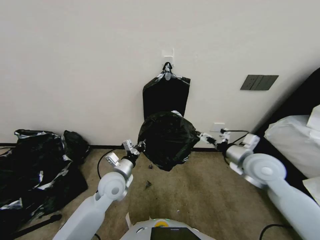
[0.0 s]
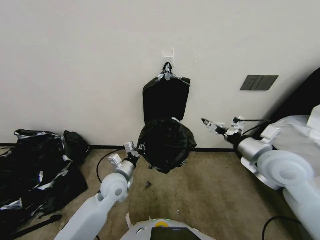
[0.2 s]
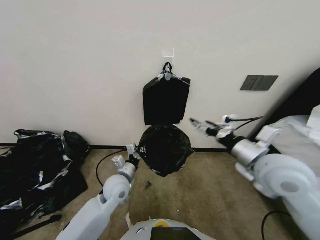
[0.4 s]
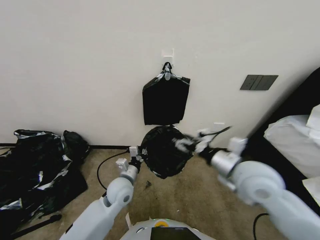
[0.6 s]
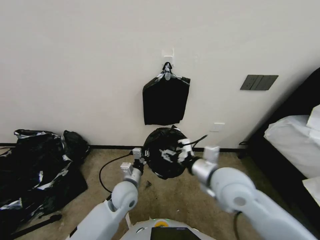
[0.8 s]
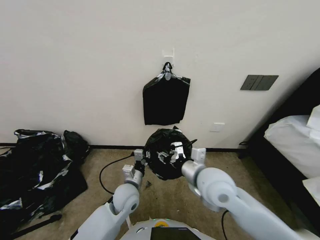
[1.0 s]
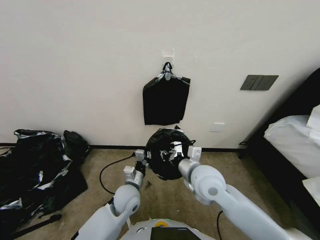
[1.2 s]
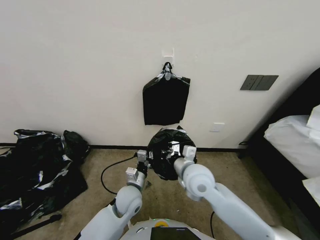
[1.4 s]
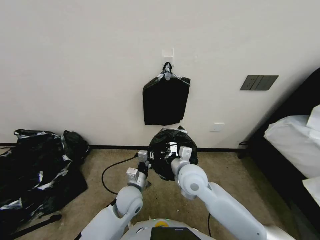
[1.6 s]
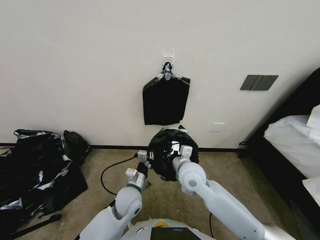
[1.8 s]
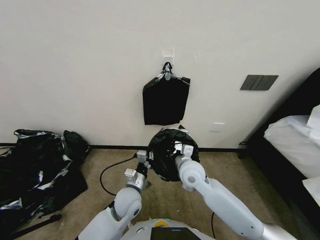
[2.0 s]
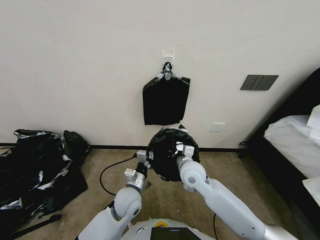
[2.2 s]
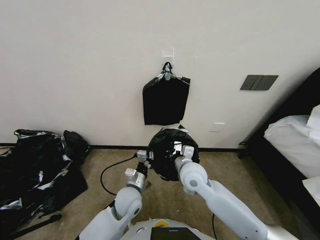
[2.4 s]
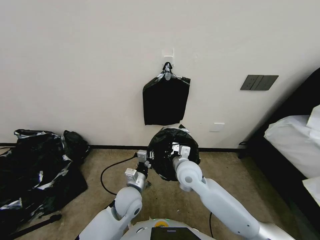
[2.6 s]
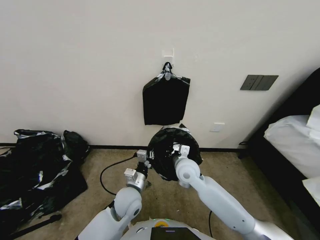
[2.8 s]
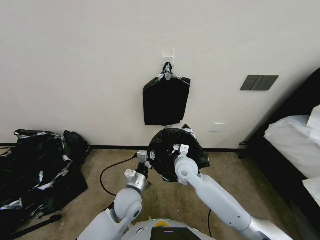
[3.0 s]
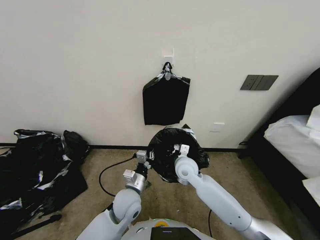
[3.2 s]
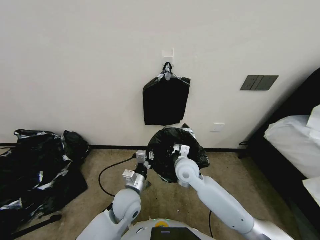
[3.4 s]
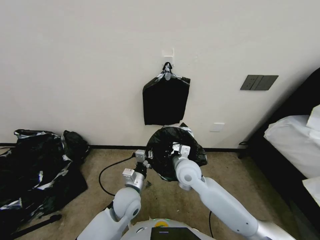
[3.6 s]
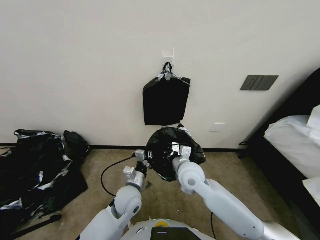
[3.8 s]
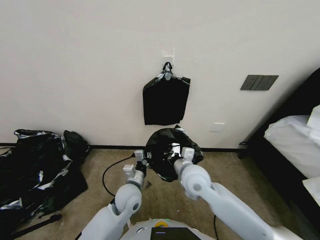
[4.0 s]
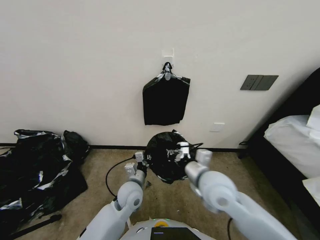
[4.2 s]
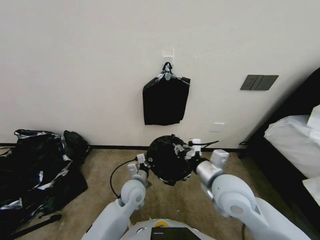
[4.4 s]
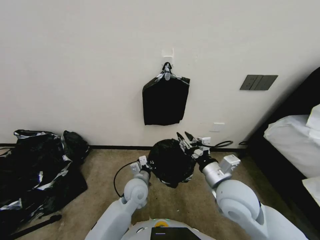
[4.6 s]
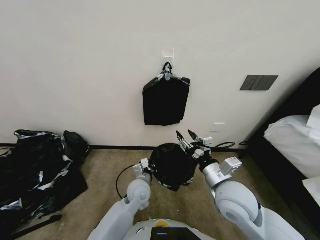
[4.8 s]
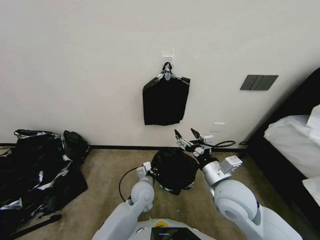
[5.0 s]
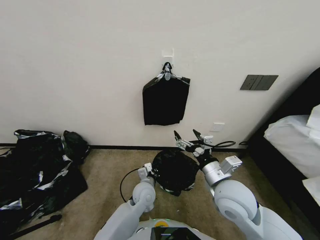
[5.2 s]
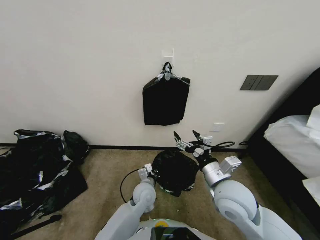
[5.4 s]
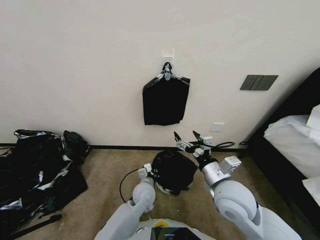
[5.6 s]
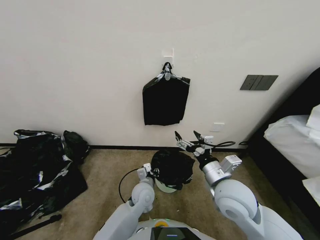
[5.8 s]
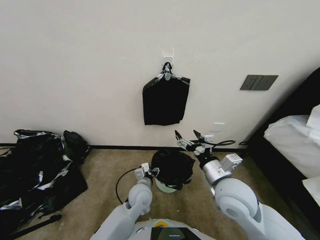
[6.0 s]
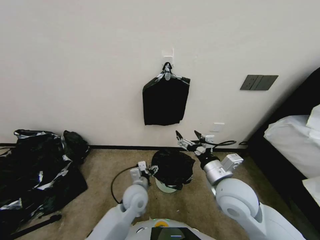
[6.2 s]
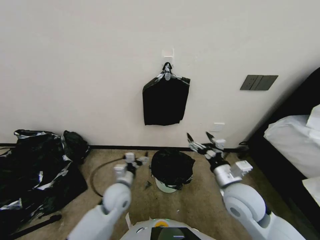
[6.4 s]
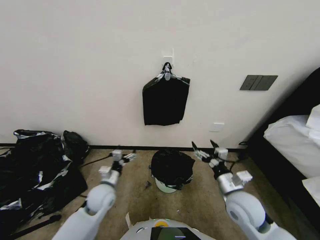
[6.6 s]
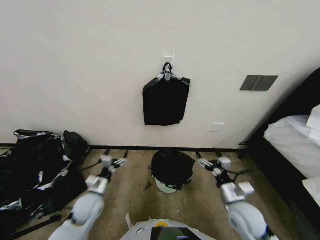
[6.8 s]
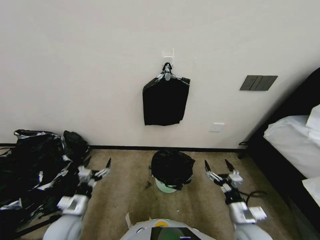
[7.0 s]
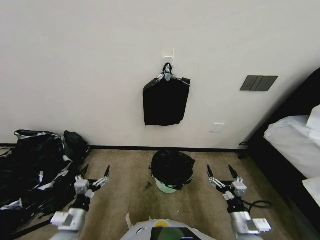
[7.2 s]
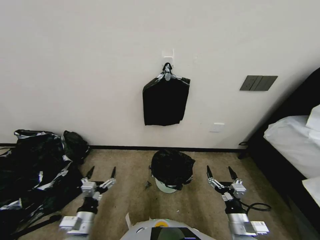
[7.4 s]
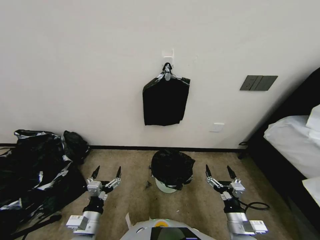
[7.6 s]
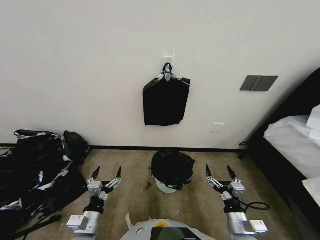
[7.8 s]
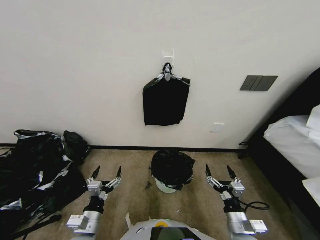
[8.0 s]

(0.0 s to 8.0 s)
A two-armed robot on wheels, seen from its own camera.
Task of the whole recording: Place a trash bag onto the trash bin.
0.0 s - 1.6 s: The left gripper is displaced to the right and downward by approximately 10 cm; the right gripper moves to the left, approximately 20 cm, and closes up.
1.6 s - 3.2 s: The right gripper is displaced forward and downward by about 10 cm.
3.2 s - 4.8 s: The left gripper changes place by roughly 5 cm, while the right gripper is displaced backward, to the right and upward by roughly 20 cm, and opens up.
4.8 s - 6.4 s: The right gripper opens up. Meanwhile the left gripper opens its fingers.
6.4 s - 8.0 s: The right gripper heads downward, backward and to the right, covering roughly 20 cm; the left gripper is displaced backward and to the left by approximately 20 cm.

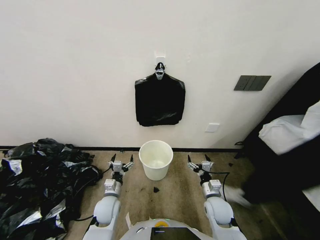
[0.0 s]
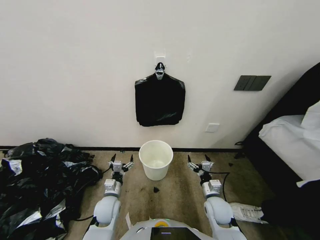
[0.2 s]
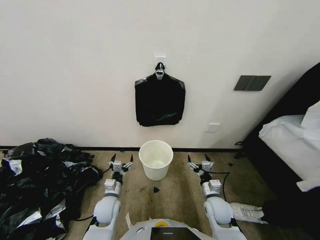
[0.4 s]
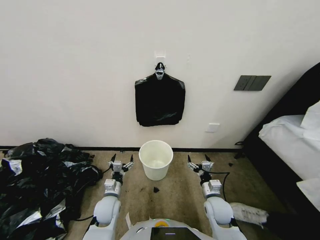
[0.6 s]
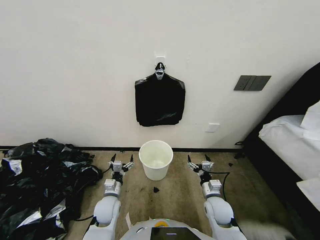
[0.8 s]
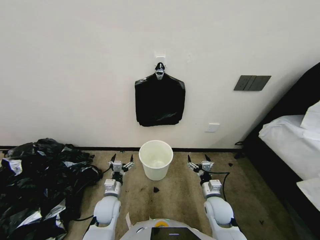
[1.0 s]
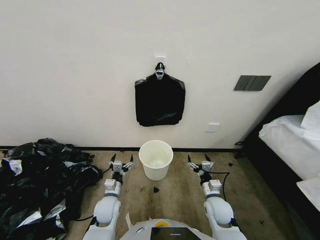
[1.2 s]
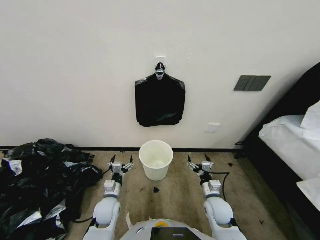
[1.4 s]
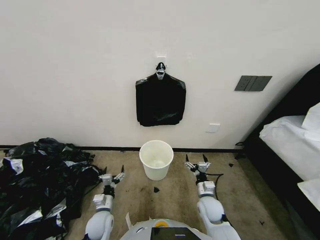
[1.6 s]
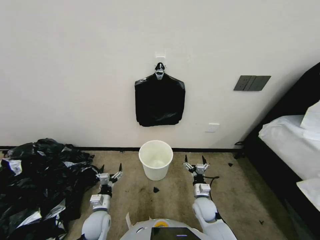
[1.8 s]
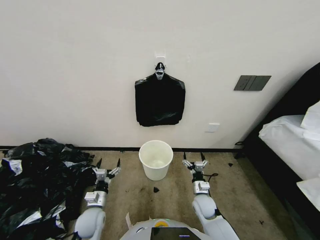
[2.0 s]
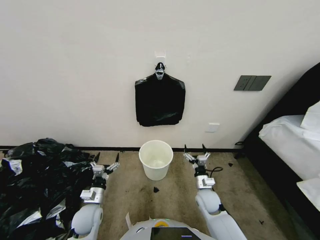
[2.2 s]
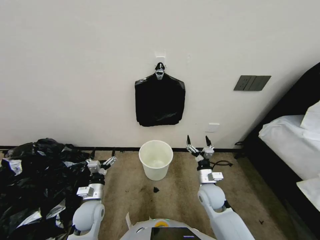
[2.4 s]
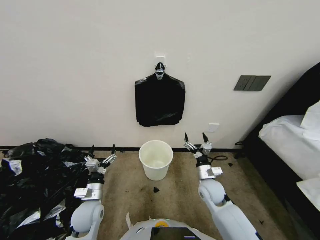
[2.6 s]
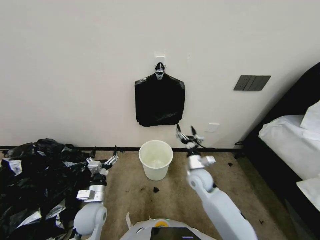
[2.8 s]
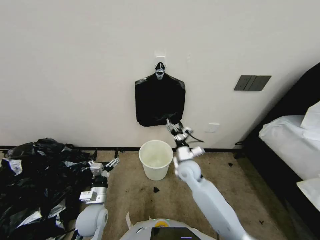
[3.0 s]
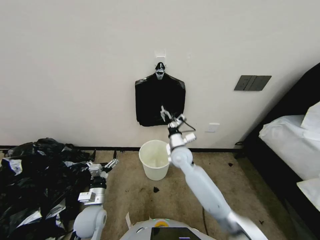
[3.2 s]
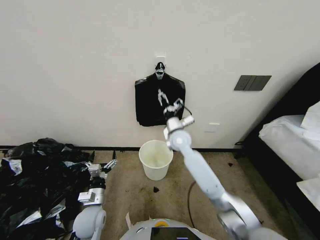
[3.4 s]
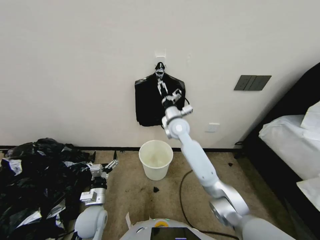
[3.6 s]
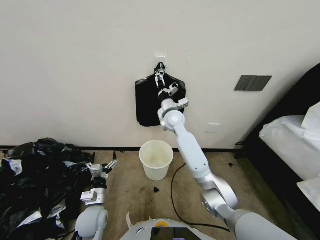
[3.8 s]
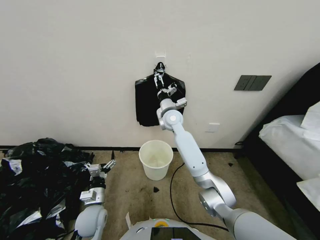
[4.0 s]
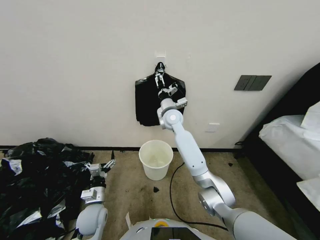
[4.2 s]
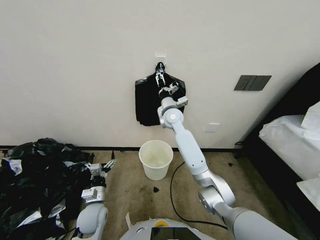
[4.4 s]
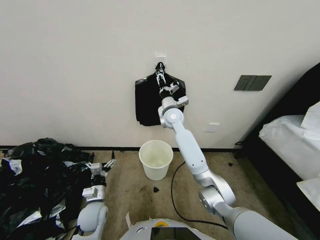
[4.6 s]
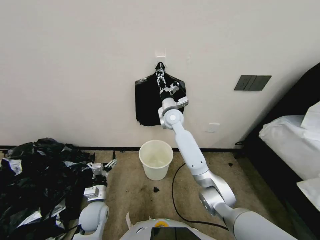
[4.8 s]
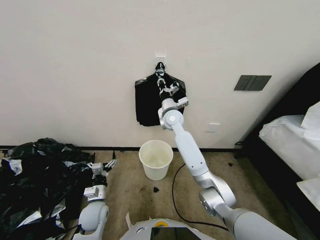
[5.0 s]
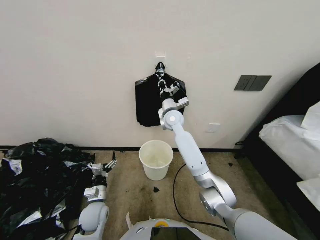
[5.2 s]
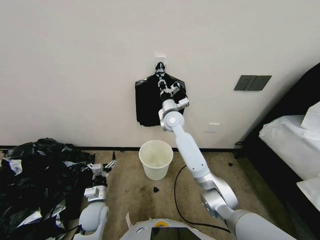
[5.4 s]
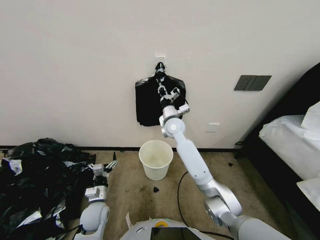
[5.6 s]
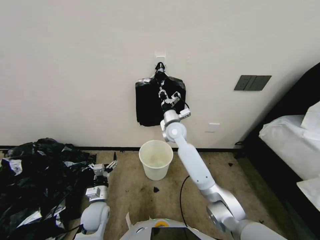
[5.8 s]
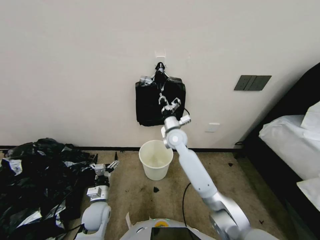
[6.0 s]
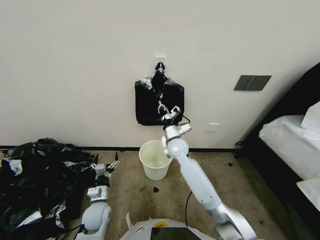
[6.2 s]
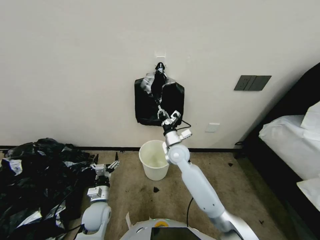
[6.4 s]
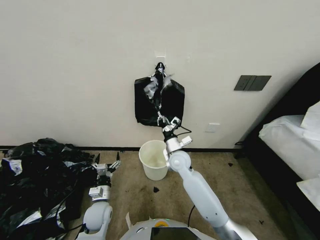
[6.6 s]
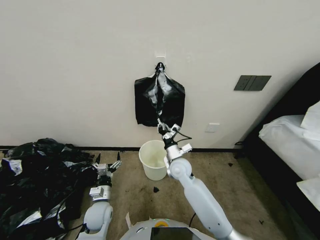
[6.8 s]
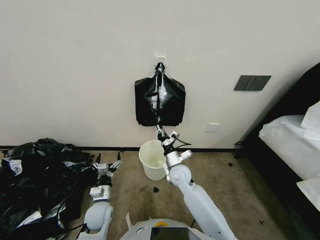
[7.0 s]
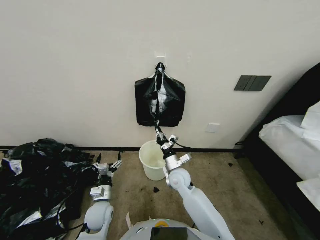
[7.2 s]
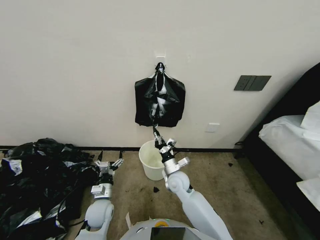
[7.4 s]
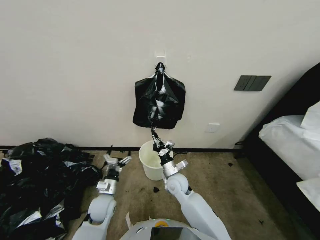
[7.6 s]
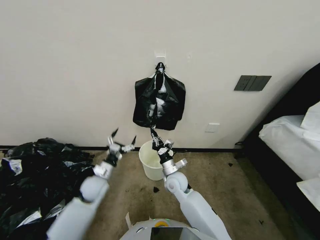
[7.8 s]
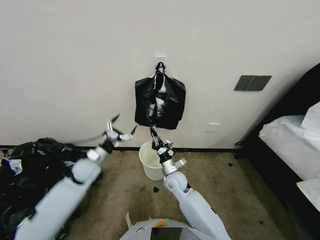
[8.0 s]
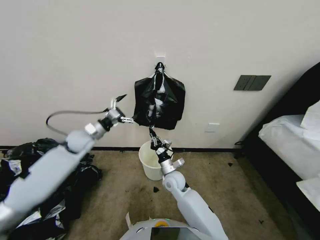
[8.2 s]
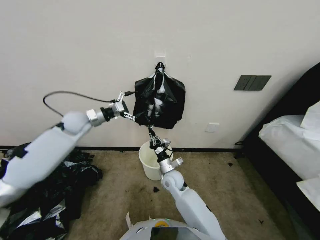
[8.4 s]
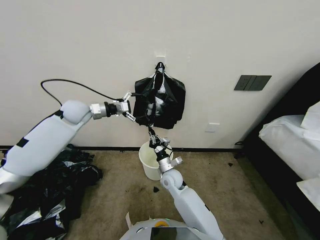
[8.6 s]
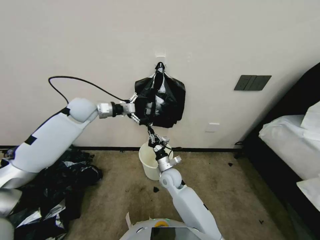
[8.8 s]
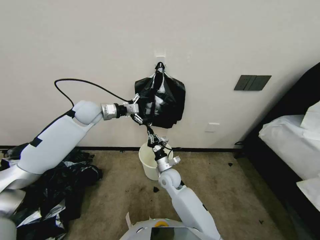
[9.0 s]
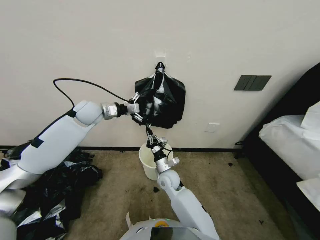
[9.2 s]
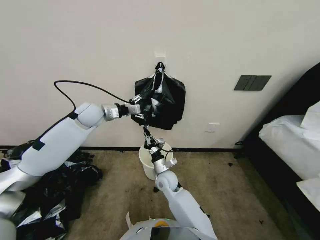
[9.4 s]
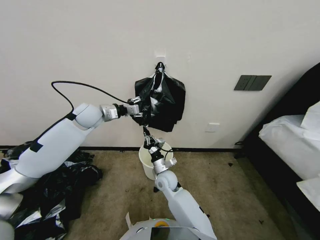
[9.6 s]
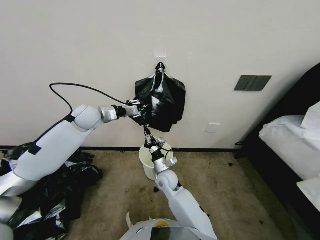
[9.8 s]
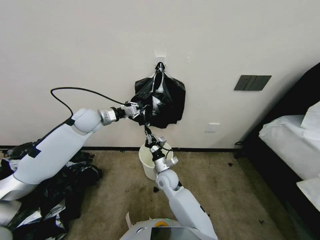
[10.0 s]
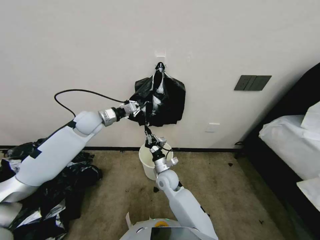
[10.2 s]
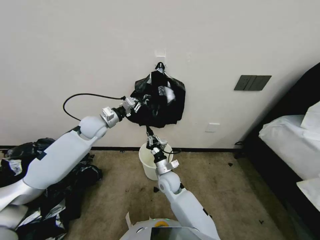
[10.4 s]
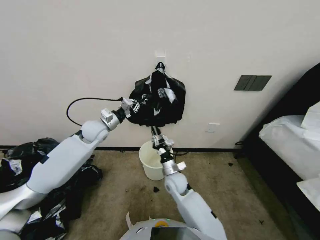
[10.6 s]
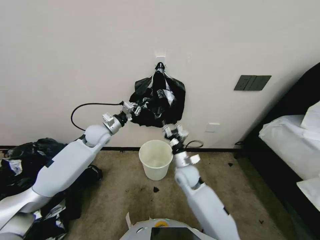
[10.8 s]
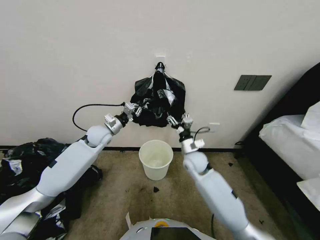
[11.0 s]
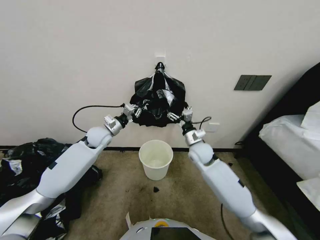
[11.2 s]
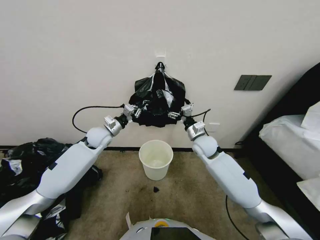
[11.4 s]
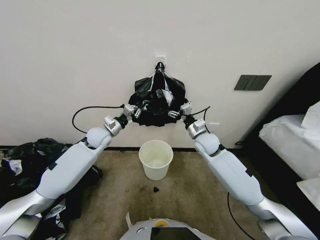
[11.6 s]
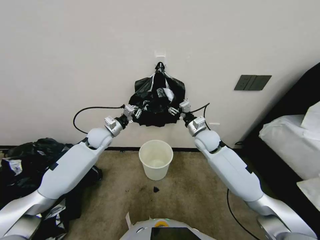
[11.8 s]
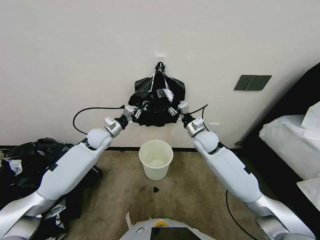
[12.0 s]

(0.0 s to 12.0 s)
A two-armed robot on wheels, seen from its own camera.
Task of the whole recording: Place a trash bag onto the trash bin.
1.6 s - 3.0 s: The right gripper goes approximately 15 cm forward, upward and to the left. Meanwhile the left gripper is displaced upward by approximately 5 cm.
3.0 s - 4.4 s: The right gripper goes approximately 25 cm upward, forward and to the left.
4.4 s - 6.0 s: The right gripper heads downward, covering about 5 cm, and closes its fingers.
6.0 s - 7.6 s: The right gripper is displaced downward and backward by some 20 cm.
7.6 s - 9.0 s: The left gripper heads upward and forward, covering roughly 40 cm.
9.0 s - 10.4 s: The left gripper changes place by roughly 5 cm, and closes its fingers.
10.4 s - 12.0 s: The left gripper is displaced downward by roughly 5 cm; the right gripper goes about 25 cm to the right, upward and forward, and opens its fingers.

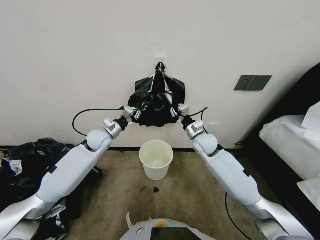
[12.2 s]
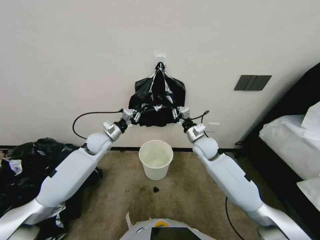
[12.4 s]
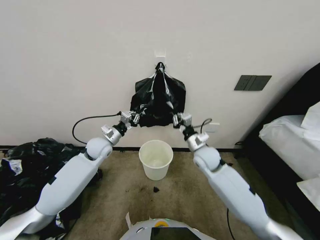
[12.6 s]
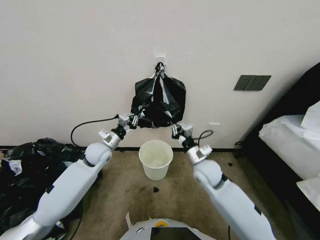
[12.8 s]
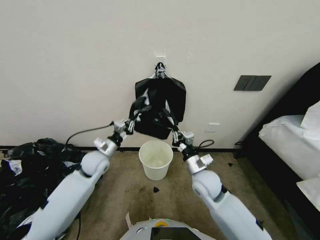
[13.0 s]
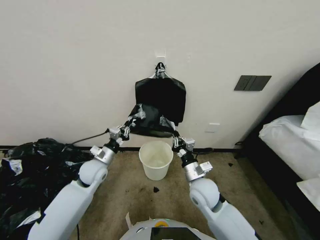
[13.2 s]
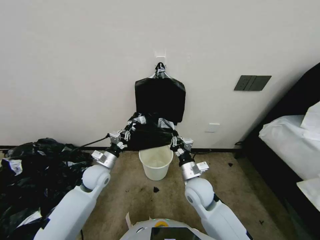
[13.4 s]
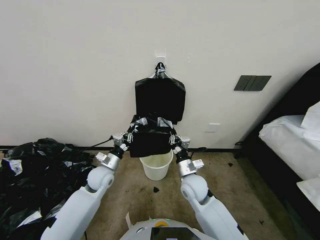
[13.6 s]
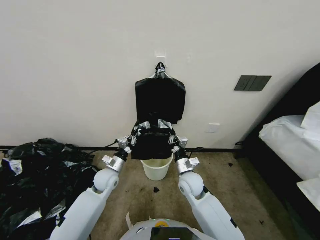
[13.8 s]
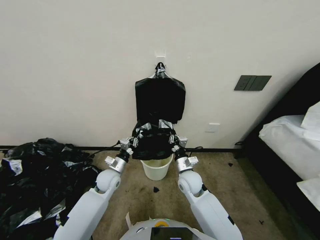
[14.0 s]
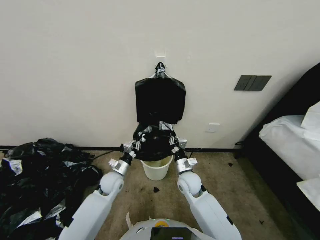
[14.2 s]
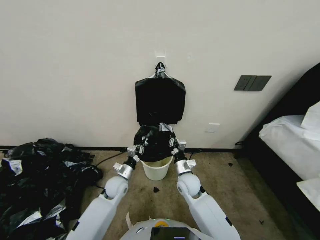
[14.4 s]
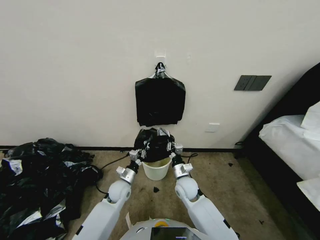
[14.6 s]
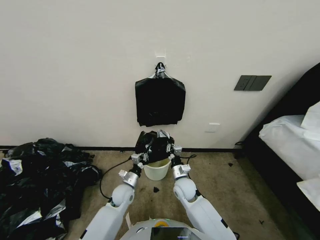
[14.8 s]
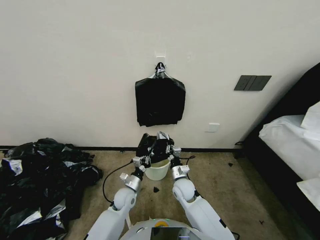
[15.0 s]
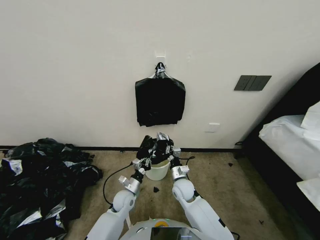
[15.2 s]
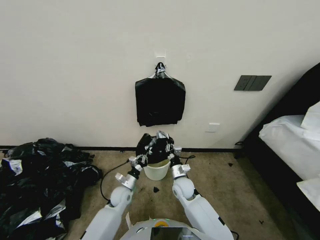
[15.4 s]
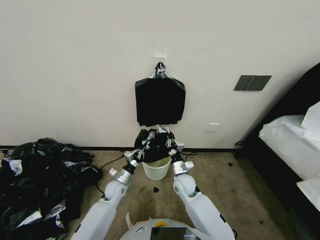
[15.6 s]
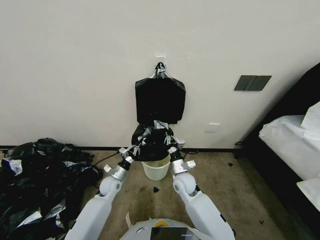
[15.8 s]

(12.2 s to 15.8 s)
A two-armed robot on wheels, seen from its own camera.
Task of the whole recording: Place a trash bag onto the trash bin.
12.2 s - 14.0 s: The right gripper heads backward, downward and to the left, covering some 20 cm, and closes up. The left gripper heads downward and backward, covering approximately 20 cm.
14.0 s - 15.8 s: The left gripper is displaced downward by some 10 cm.
